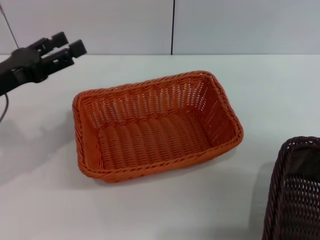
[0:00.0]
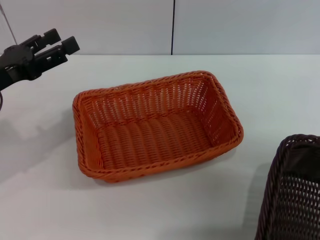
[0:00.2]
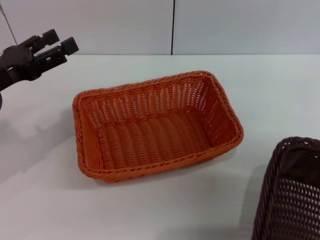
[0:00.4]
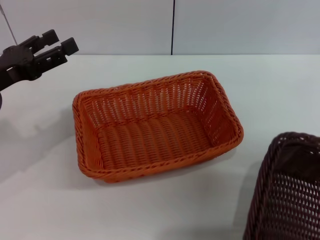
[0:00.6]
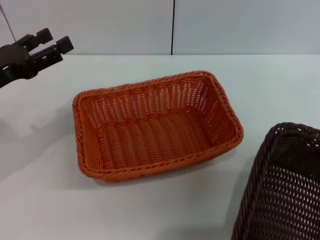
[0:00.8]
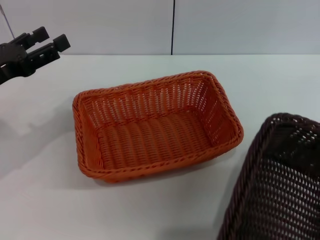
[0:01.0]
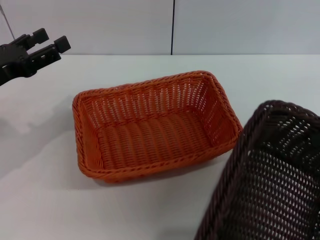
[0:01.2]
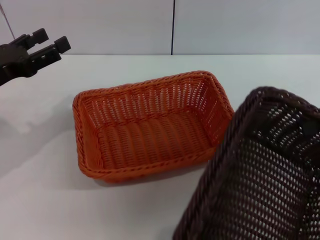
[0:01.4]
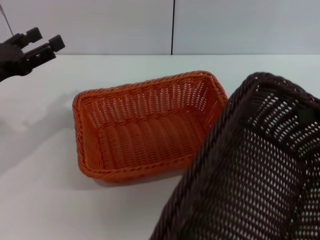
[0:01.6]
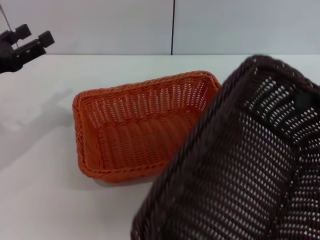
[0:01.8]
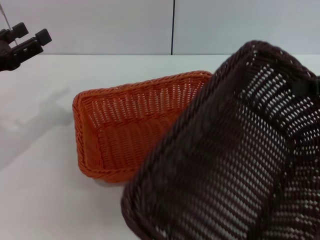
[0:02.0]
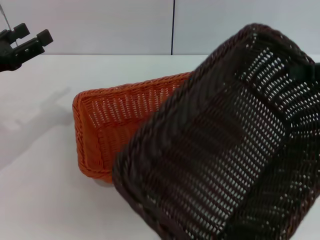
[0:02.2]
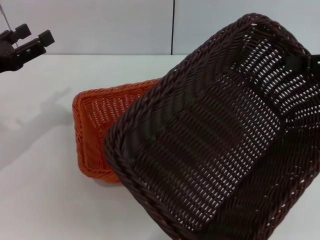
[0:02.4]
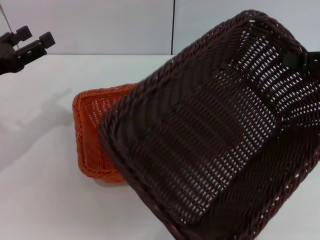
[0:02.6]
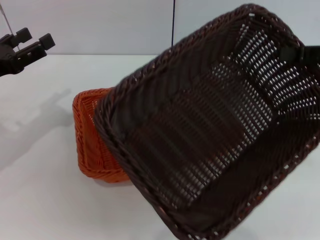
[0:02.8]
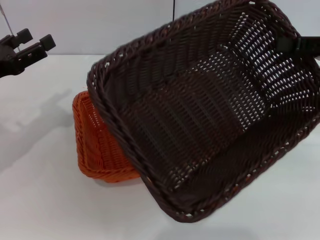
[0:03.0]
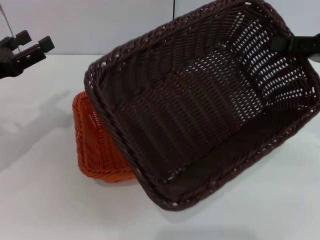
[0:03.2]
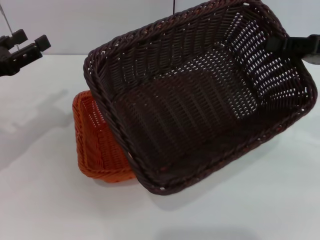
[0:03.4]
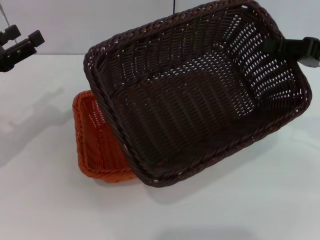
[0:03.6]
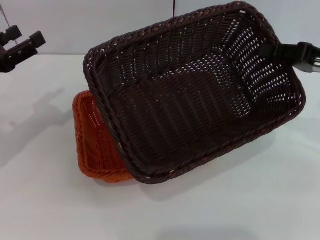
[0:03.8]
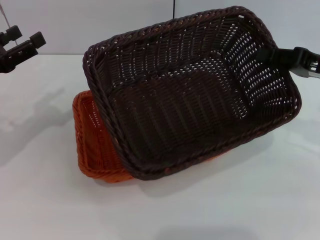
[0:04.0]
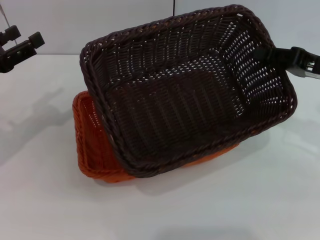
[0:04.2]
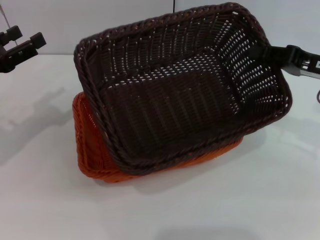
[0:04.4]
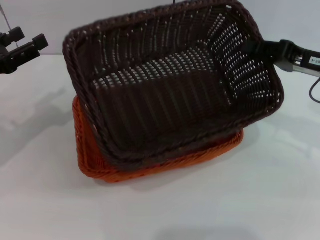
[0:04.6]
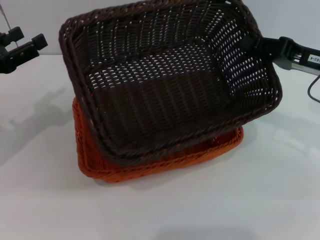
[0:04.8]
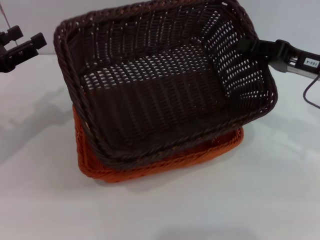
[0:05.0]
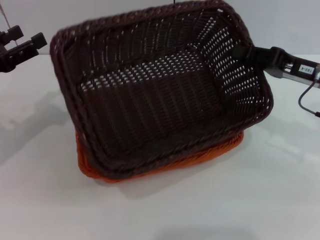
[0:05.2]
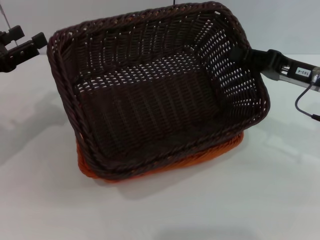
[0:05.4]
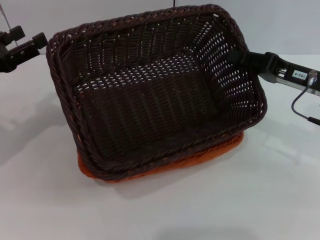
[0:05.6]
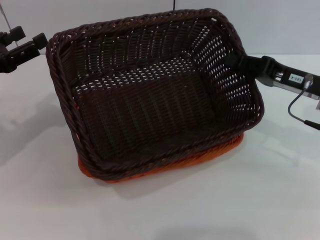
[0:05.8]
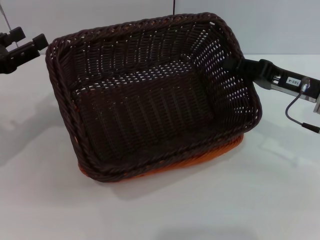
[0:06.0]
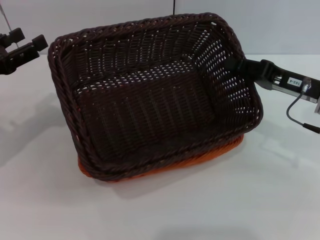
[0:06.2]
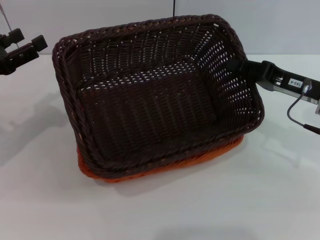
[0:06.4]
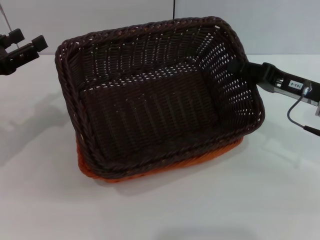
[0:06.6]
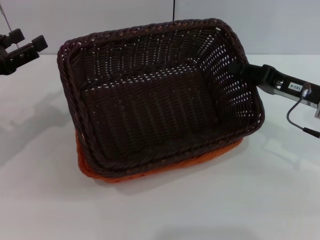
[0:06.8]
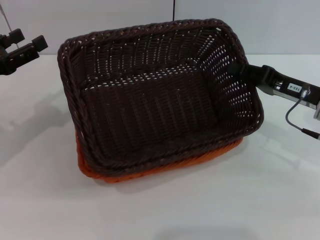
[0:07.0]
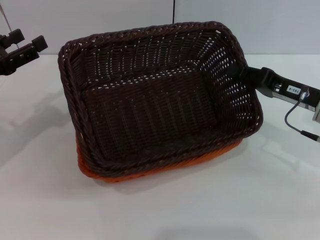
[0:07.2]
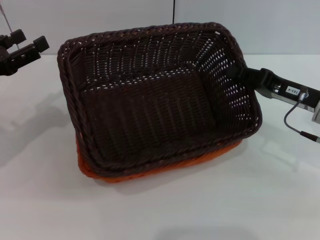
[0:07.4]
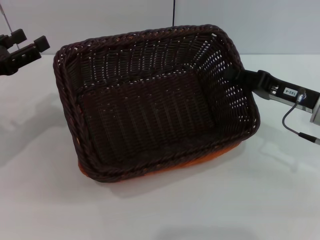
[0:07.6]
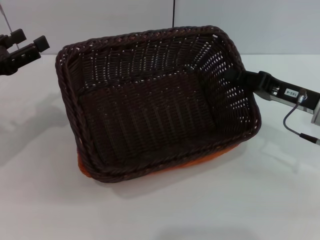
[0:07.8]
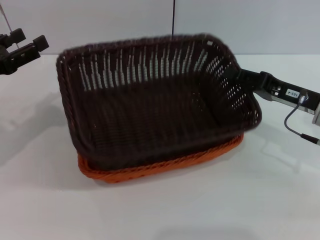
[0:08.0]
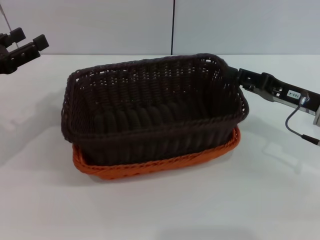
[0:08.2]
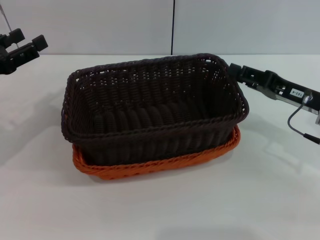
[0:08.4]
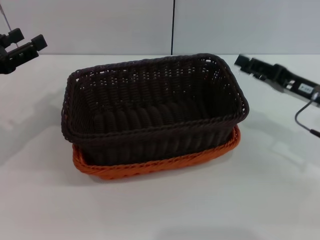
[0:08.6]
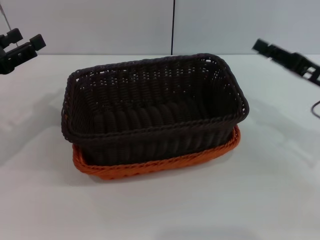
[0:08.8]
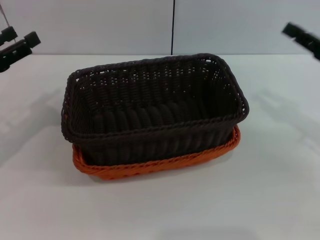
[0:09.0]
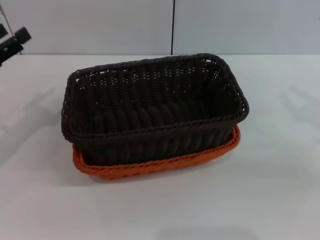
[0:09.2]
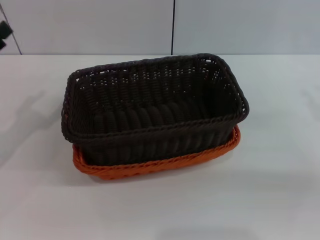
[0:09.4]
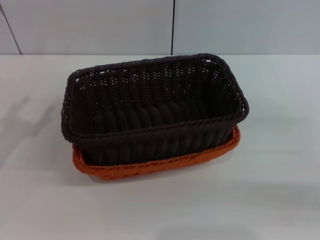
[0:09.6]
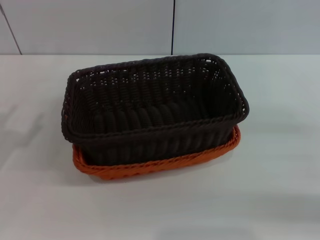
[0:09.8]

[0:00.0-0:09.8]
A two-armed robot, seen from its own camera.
Step, 0:00.0 to 0:08.0: Place the dark basket on the light basket with the right gripper.
0:02.8 to 0:04.2: The right gripper travels downward by about 5 cm.
0:04.2 to 0:07.0: There are only small adjustments of the grippers.
0:07.0 to 0:08.4: The right gripper opens its fingers.
0:08.4 to 0:09.8: The left gripper shifts some 10 cm backward. Meanwhile the right gripper heads to the right and backward, covering roughly 15 cm.
